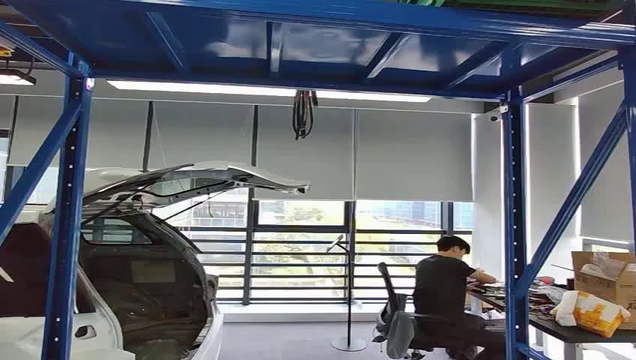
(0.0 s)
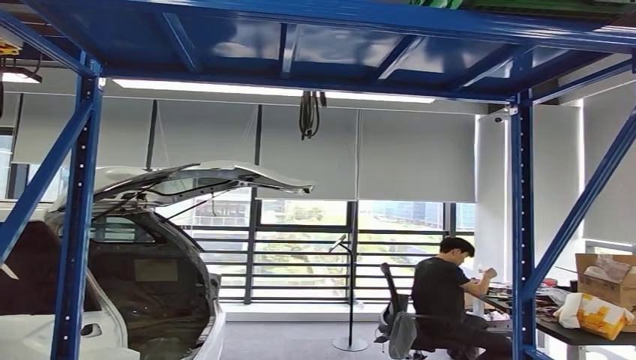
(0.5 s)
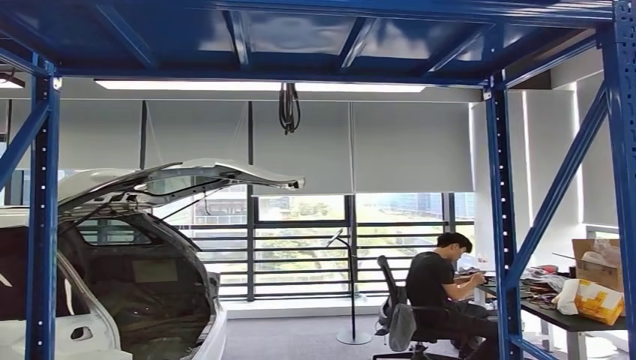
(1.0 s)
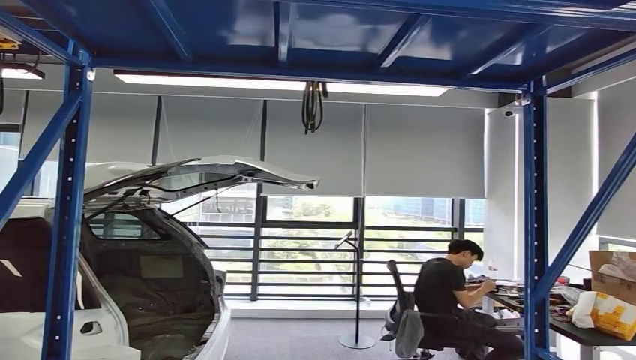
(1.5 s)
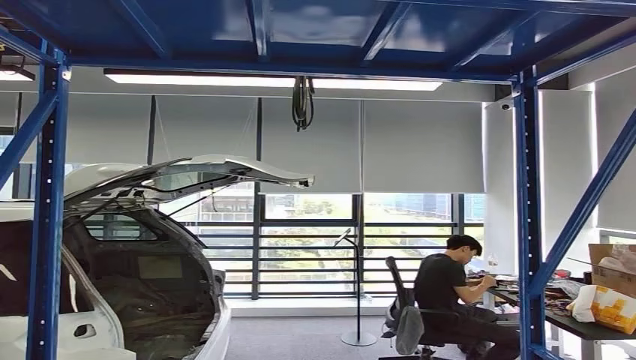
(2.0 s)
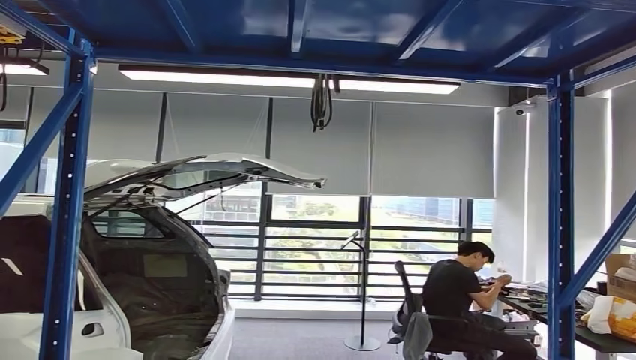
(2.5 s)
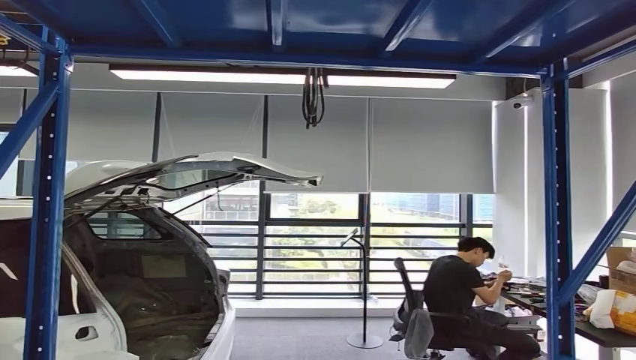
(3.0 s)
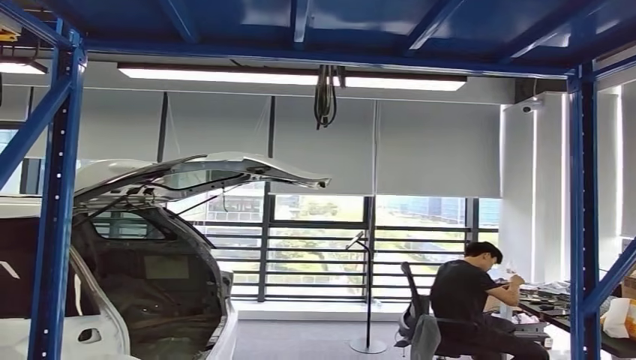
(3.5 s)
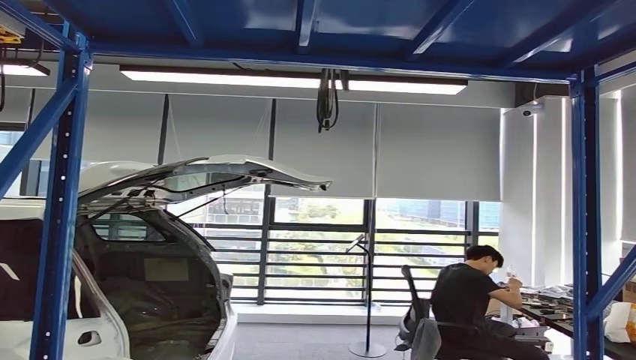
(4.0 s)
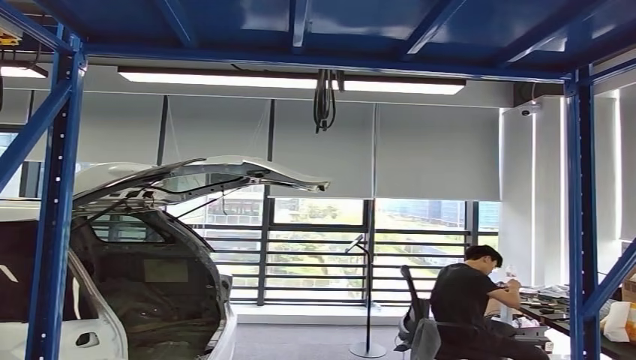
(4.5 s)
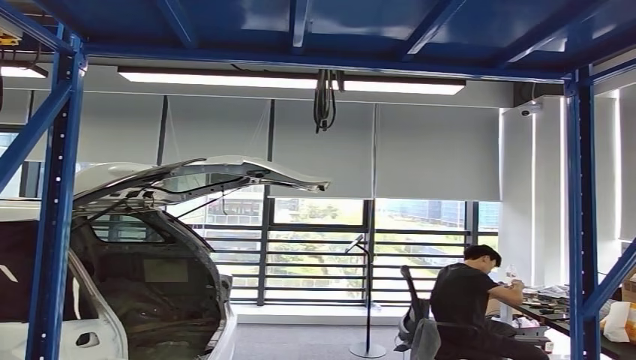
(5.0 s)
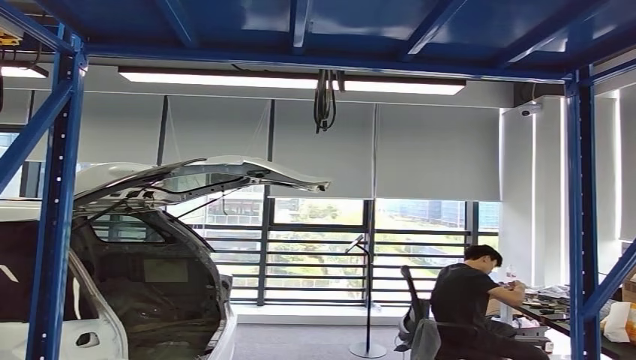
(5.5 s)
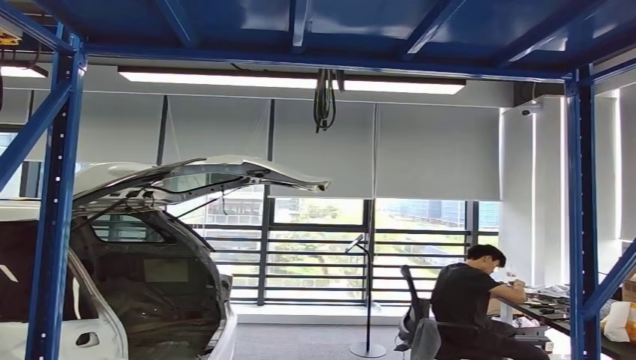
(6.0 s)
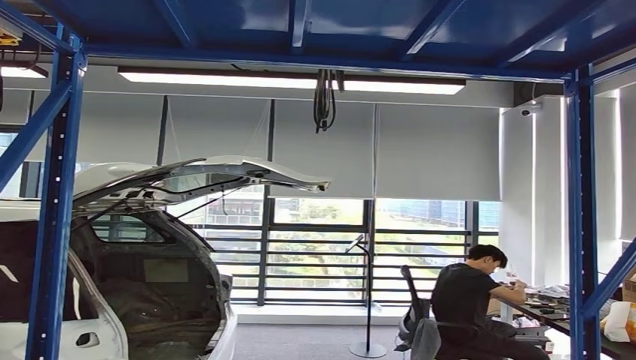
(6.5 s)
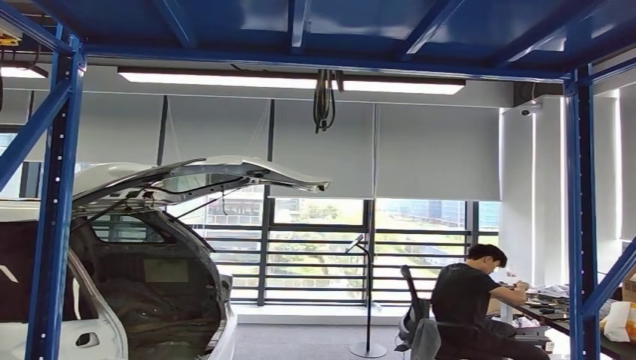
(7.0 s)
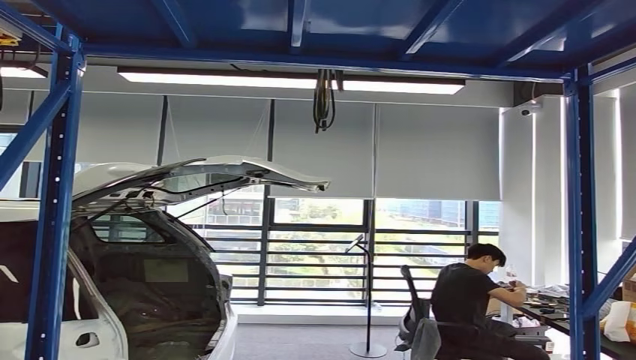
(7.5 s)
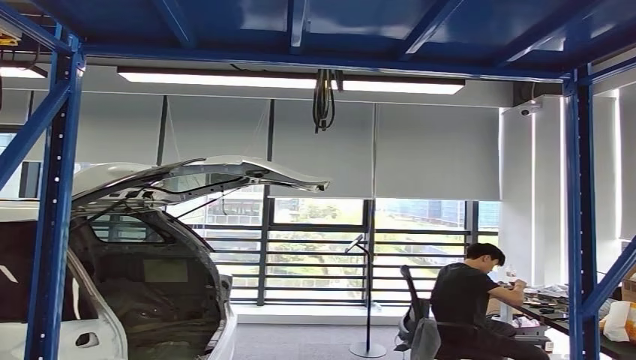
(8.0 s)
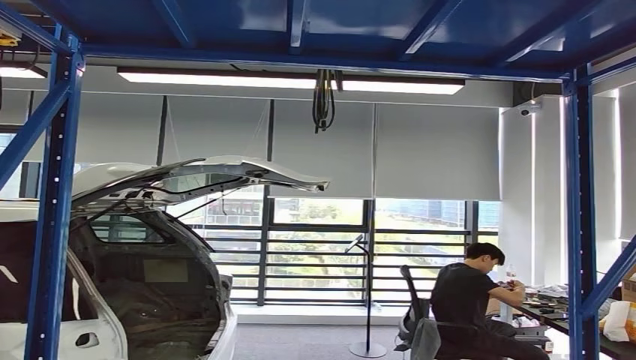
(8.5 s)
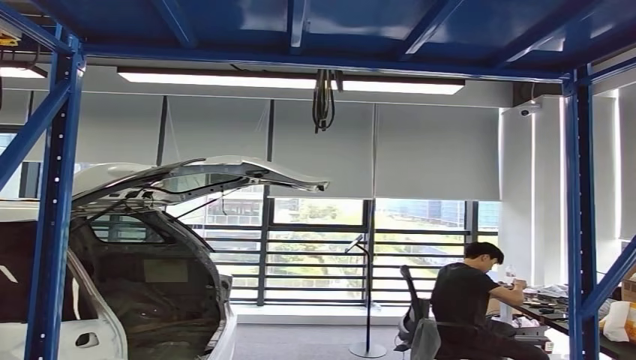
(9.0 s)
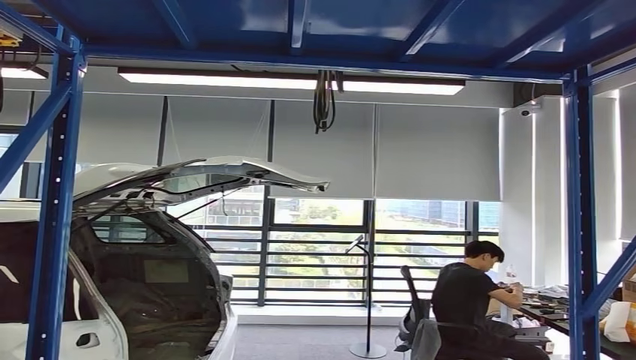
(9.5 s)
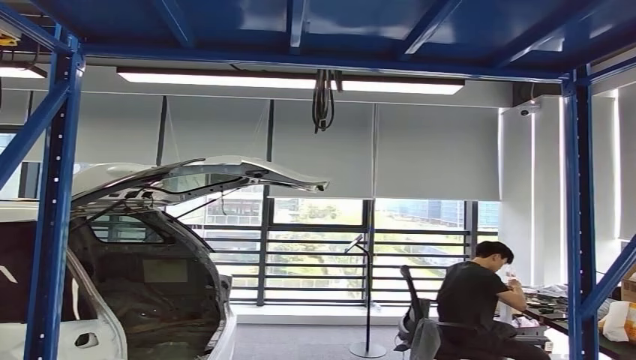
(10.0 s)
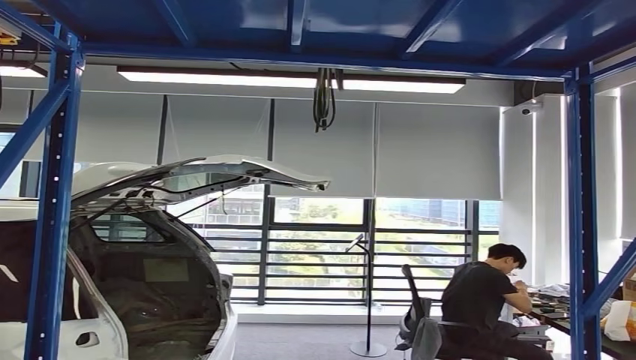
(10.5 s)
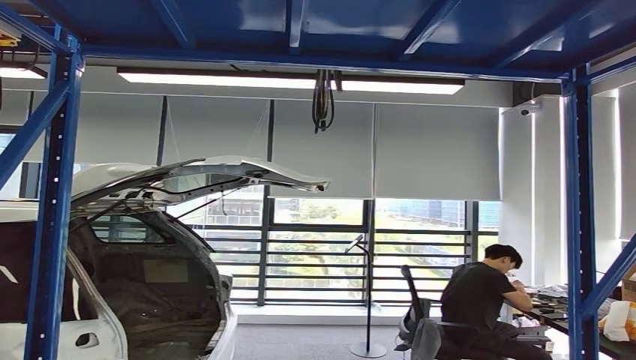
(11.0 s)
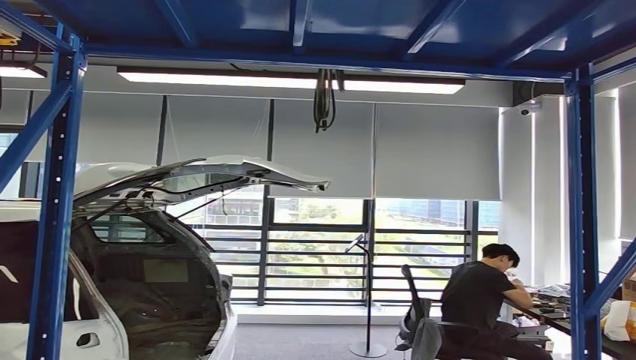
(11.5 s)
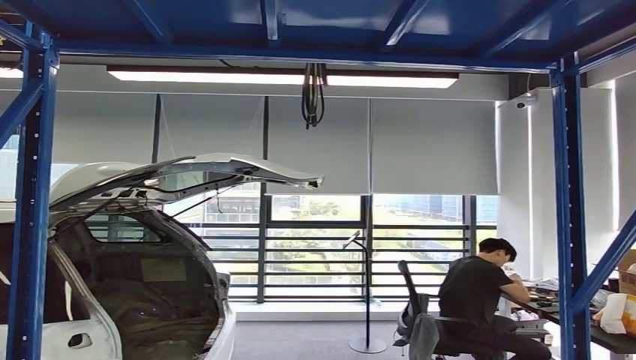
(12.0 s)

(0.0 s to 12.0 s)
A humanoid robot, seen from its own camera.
Step, 0.0 s - 11.5 s: Pick up the small component from the shelf.
4.0 s - 6.0 s: The right hand travels forward, to the right and downward by approximately 10 cm.
6.0 s - 8.0 s: The right hand heads forward and to the left, covering some 10 cm.
8.0 s - 10.0 s: The right hand heads to the left, covering roughly 10 cm.

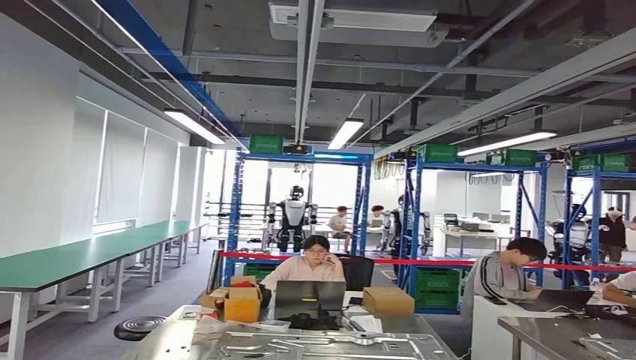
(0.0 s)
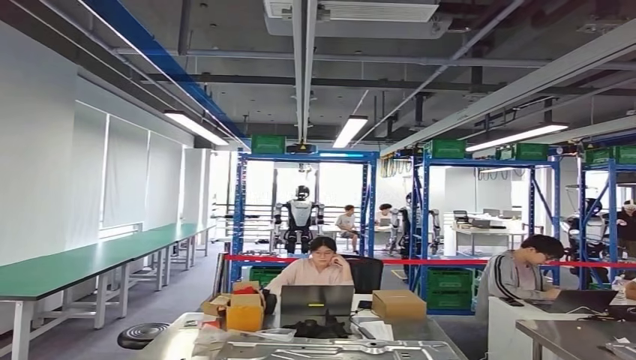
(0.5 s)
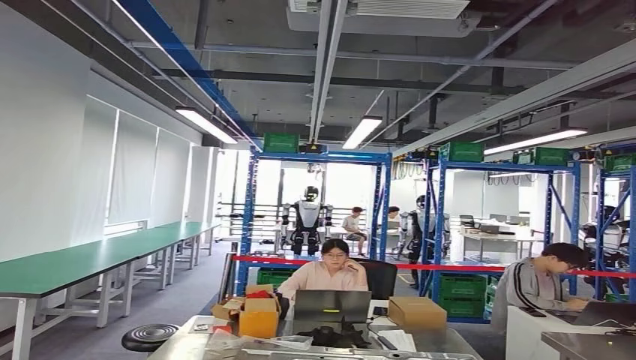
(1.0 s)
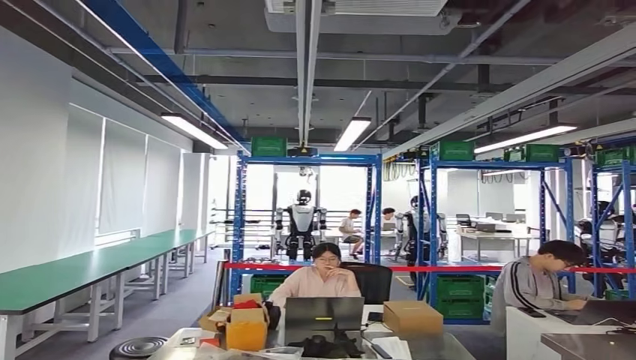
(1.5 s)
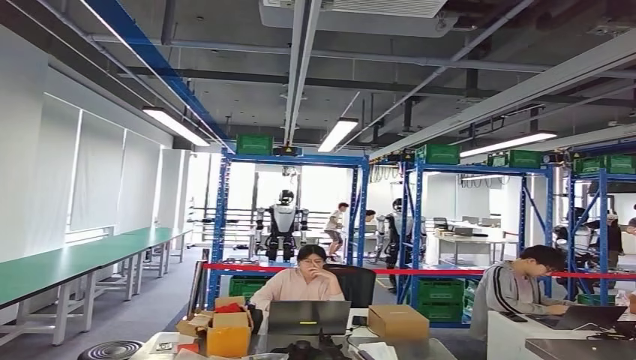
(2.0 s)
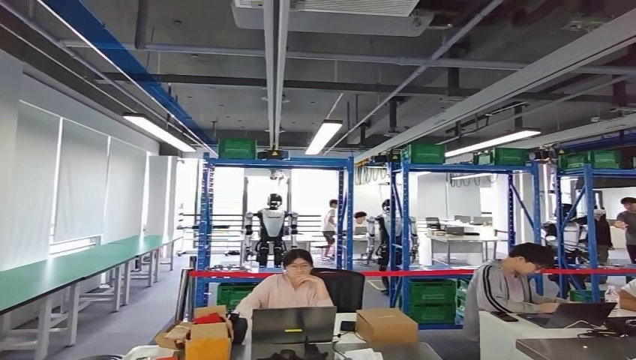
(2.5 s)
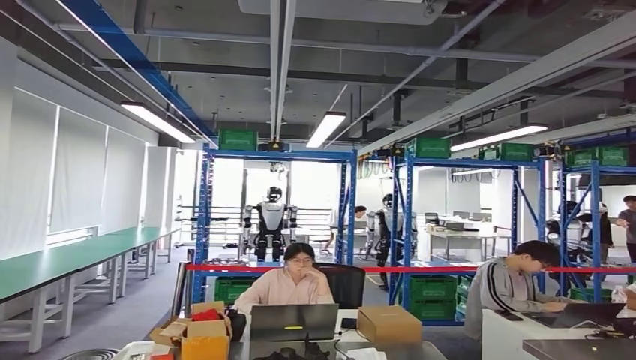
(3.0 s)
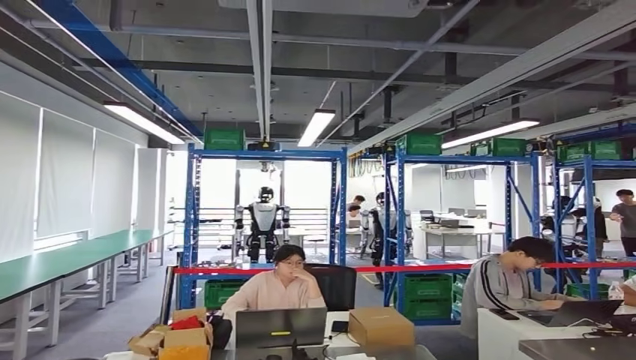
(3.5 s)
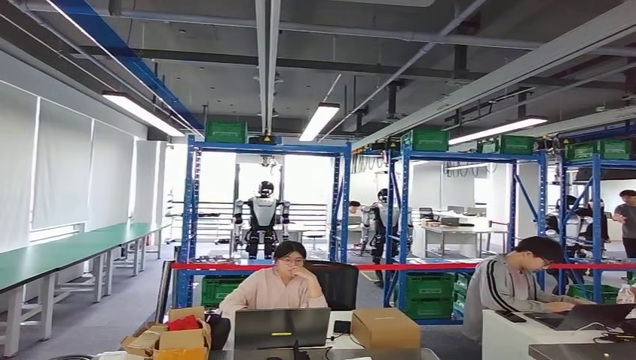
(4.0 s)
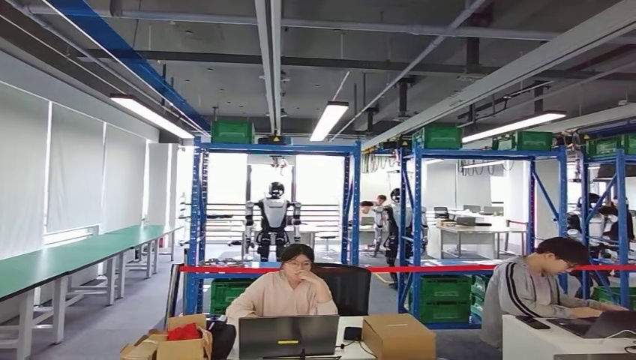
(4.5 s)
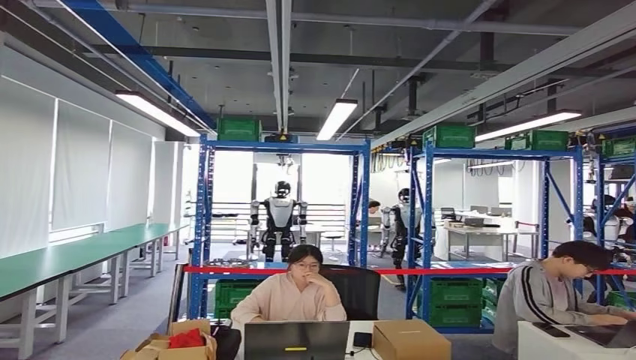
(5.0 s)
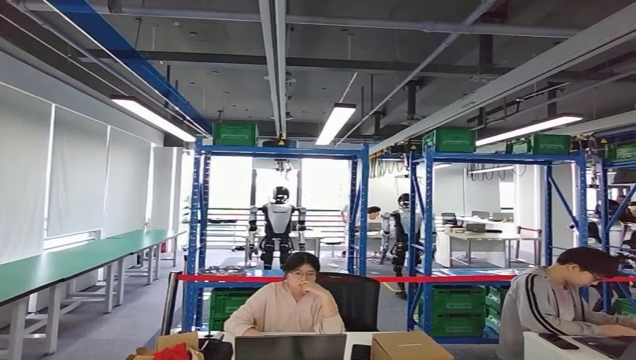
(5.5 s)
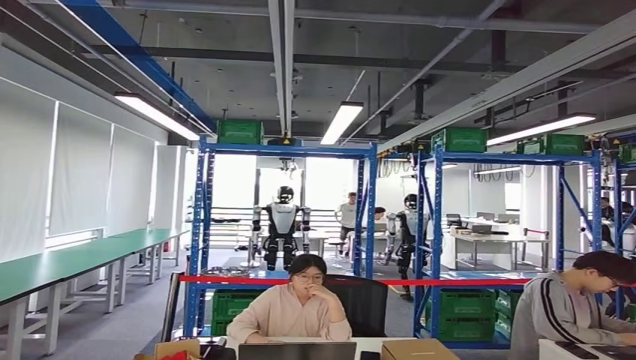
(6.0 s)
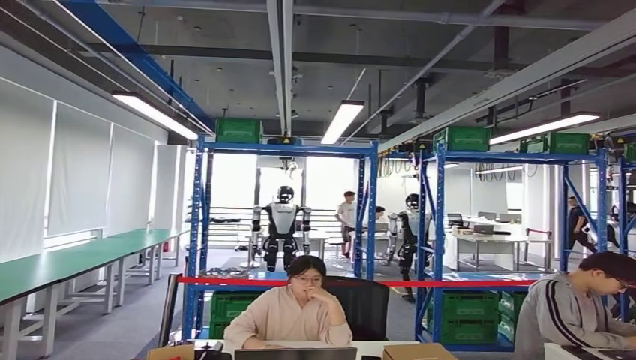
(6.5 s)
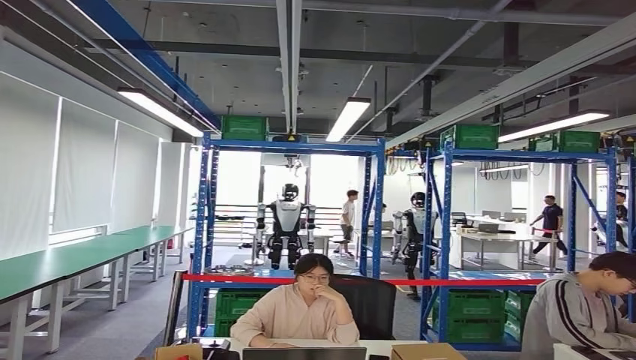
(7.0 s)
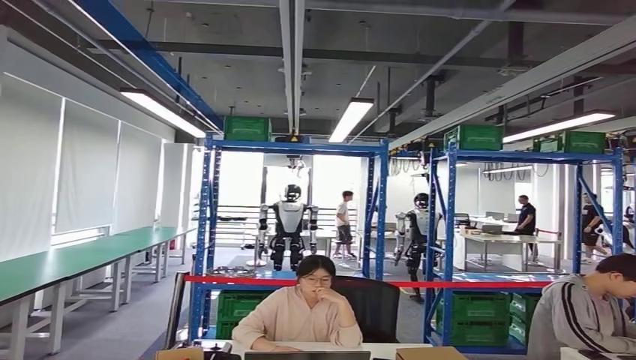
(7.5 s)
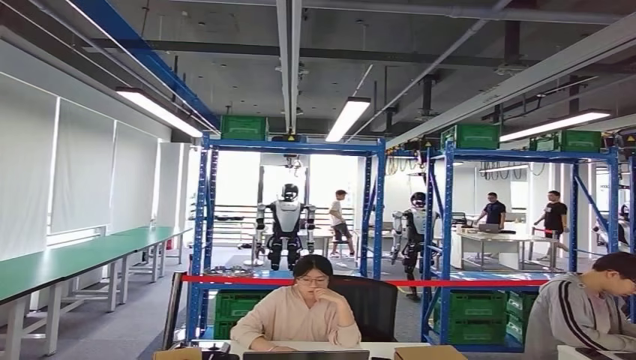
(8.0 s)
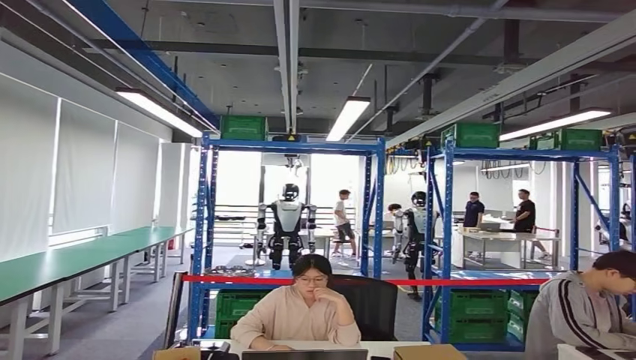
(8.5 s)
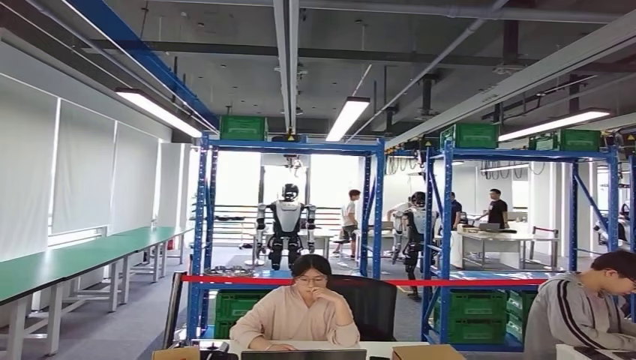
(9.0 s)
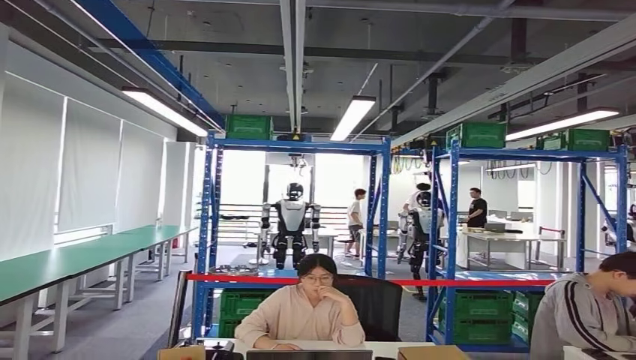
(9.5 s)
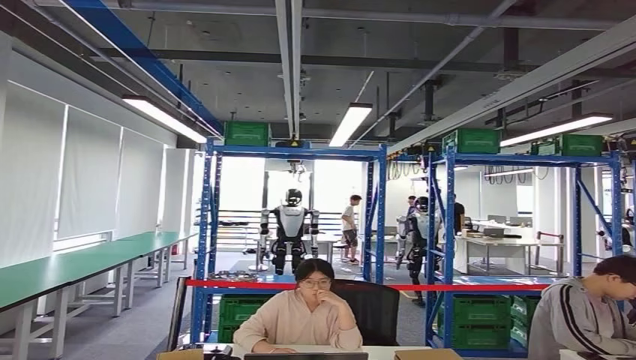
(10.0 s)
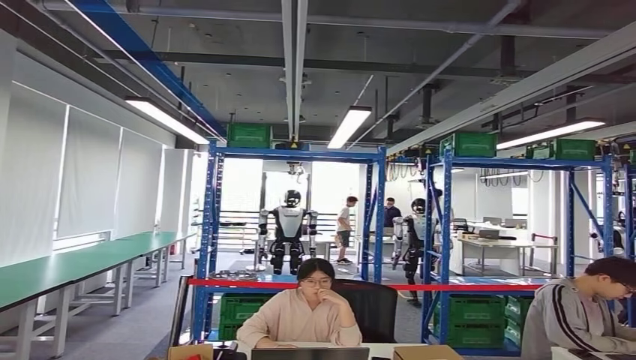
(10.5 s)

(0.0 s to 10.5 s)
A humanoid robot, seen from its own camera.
Step, 0.0 s - 8.0 s: Move the small component to the workbench.
